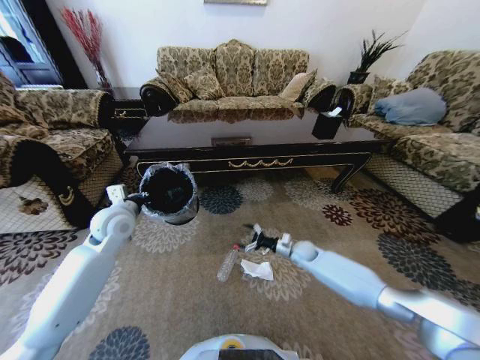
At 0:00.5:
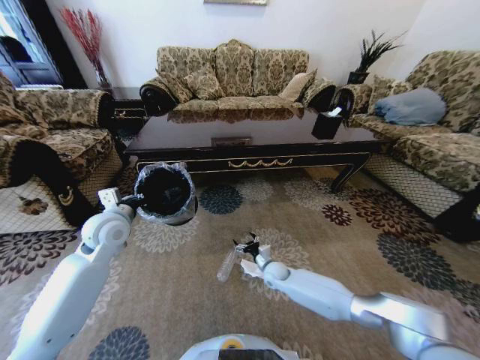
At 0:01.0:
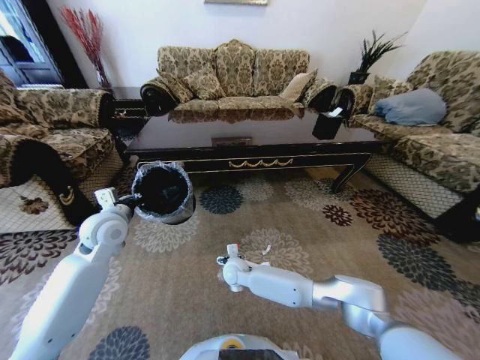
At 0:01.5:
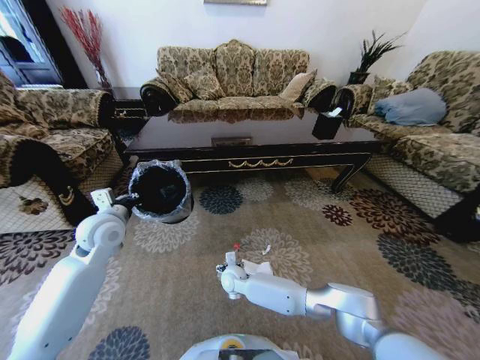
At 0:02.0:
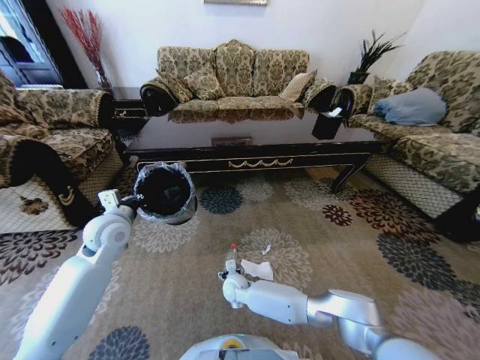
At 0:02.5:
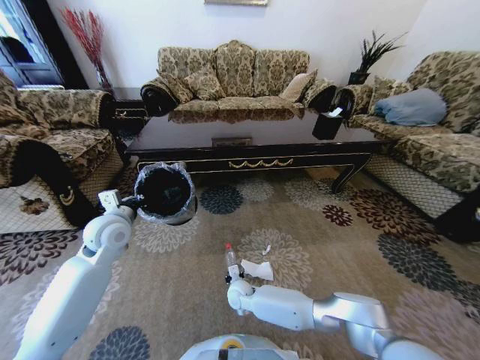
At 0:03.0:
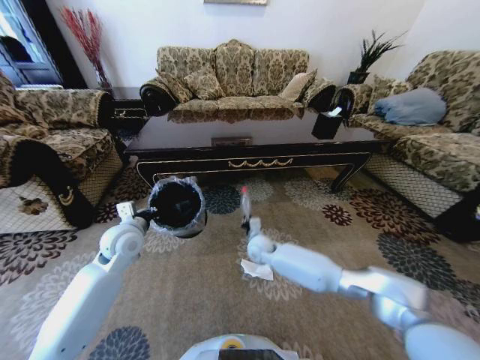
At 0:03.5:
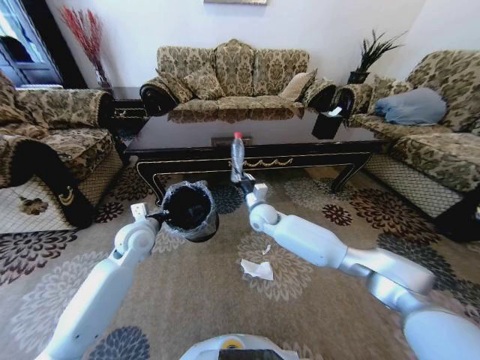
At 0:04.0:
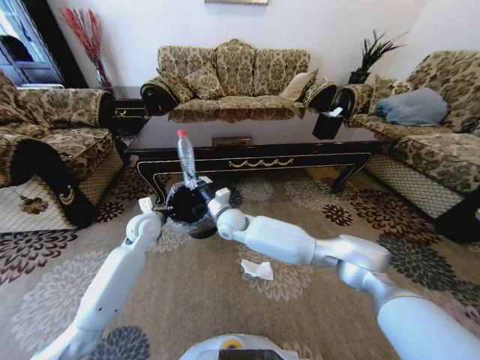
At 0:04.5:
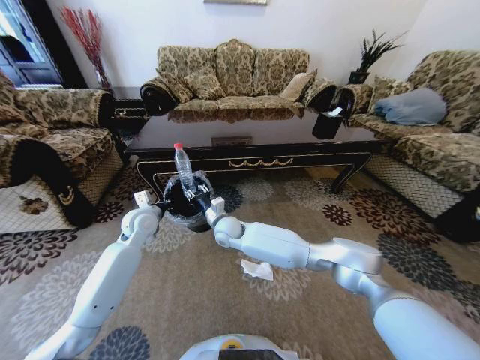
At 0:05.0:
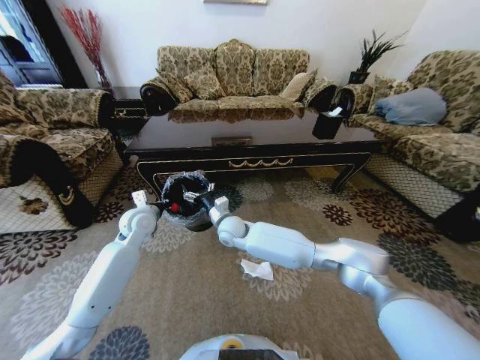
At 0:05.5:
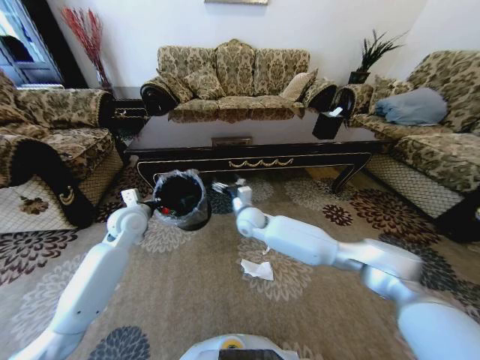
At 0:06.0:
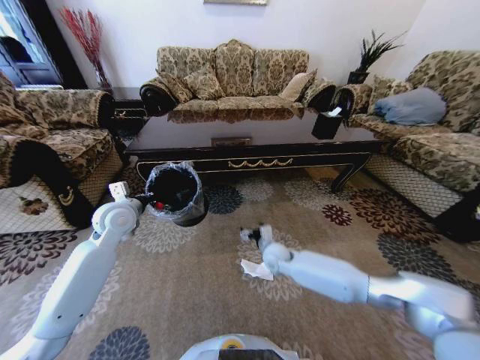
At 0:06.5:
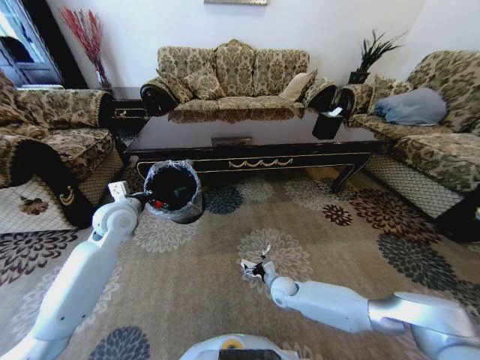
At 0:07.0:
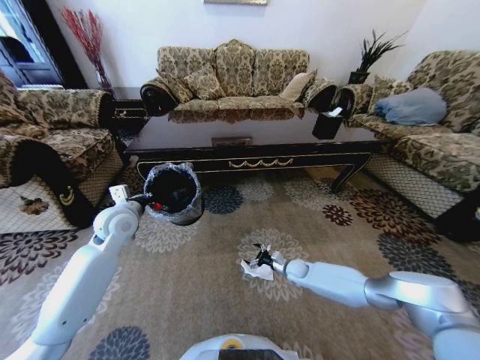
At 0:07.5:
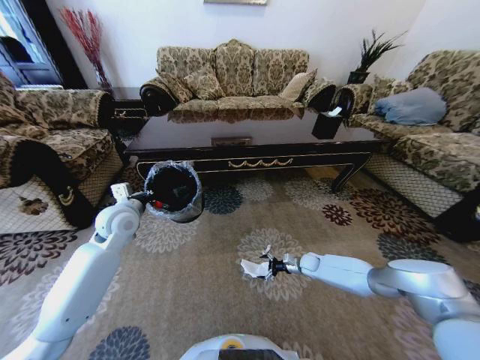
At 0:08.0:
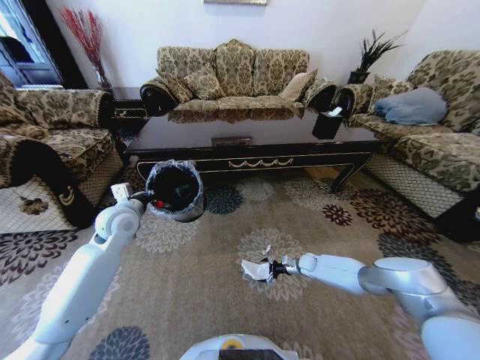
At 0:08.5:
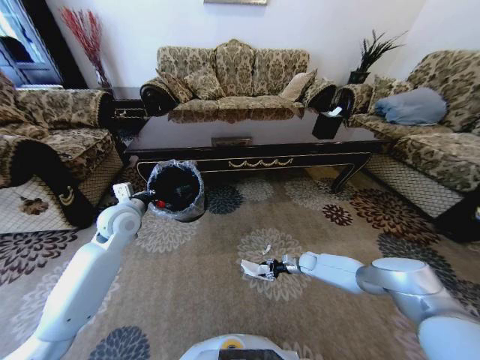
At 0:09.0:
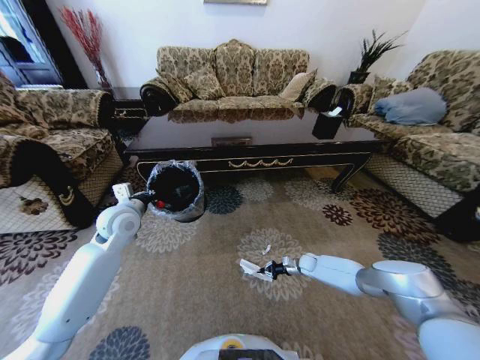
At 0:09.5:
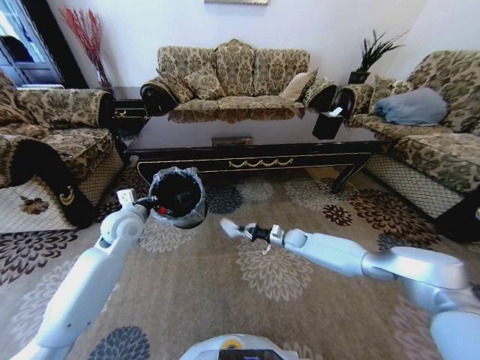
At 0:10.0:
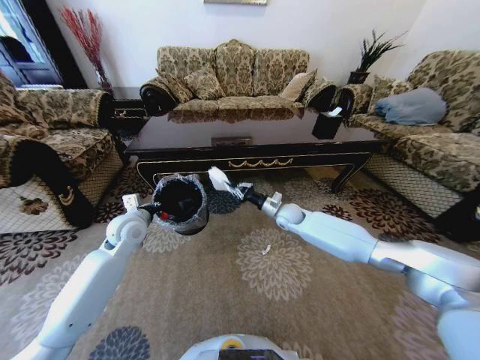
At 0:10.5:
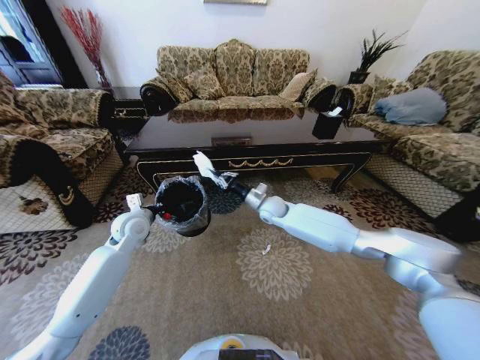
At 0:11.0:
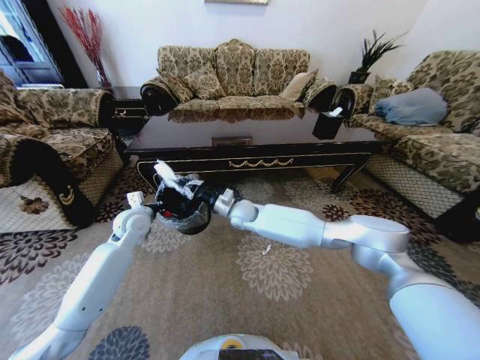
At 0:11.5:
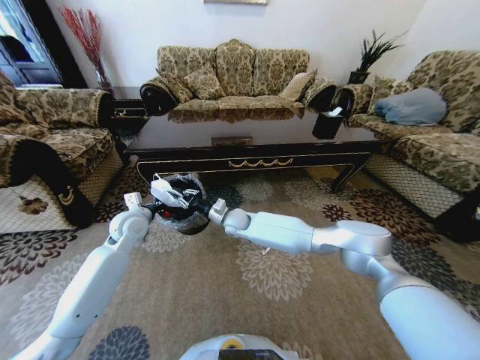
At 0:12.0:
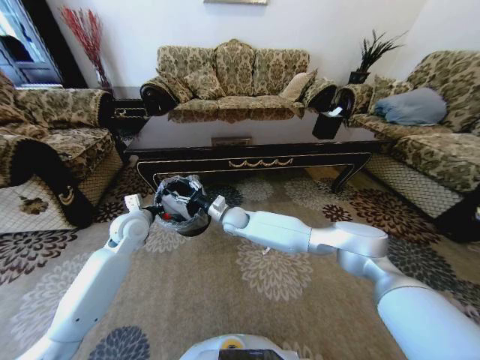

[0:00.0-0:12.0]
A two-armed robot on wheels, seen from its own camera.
Task of the whole recording: Move to the front of the table and pick up the trash from the floor, then place it into the trash bin.
0:00.0 to 0:02.0: The right gripper travels to the left by roughly 25 cm.
0:02.0 to 0:04.0: The right gripper shifts approximately 25 cm upward and forward, and closes up; the left gripper moves downward and forward, roughly 10 cm.
0:04.0 to 0:06.0: The left gripper is displaced upward by some 10 cm. The right gripper moves to the right and downward, about 20 cm, and opens up.
0:06.0 to 0:08.0: The right gripper shifts approximately 25 cm to the right and downward.
0:08.0 to 0:10.0: The right gripper goes about 25 cm upward and to the left, and closes up.
0:10.0 to 0:12.0: The right gripper is displaced to the left by about 20 cm, and opens.

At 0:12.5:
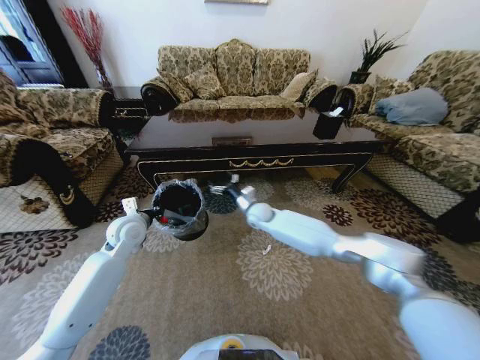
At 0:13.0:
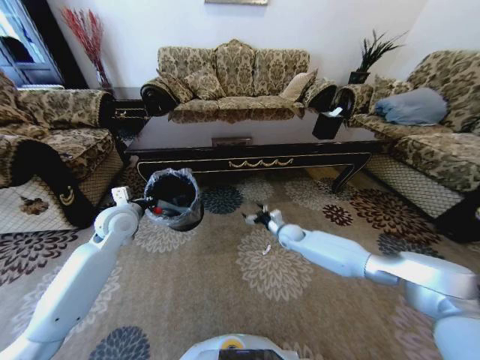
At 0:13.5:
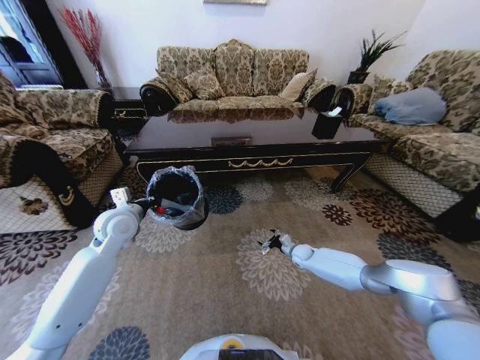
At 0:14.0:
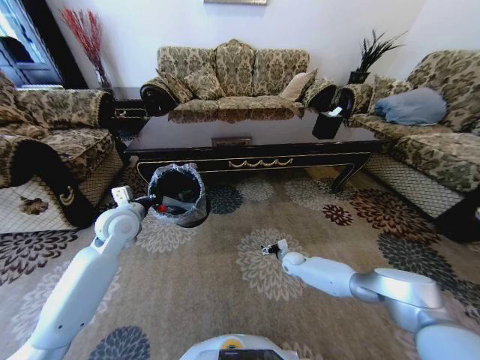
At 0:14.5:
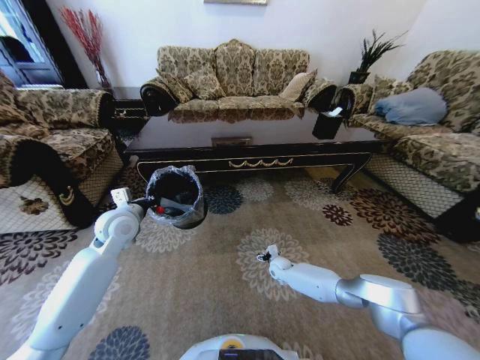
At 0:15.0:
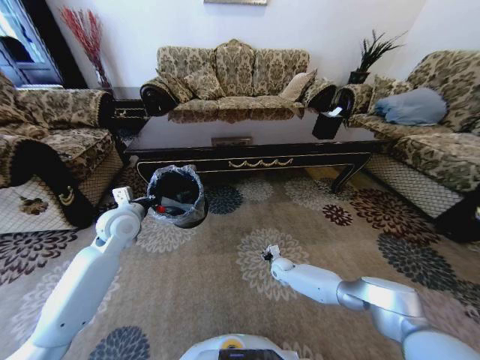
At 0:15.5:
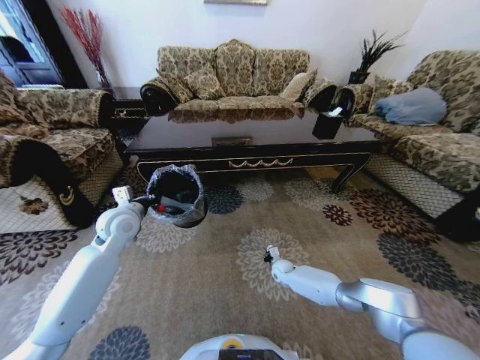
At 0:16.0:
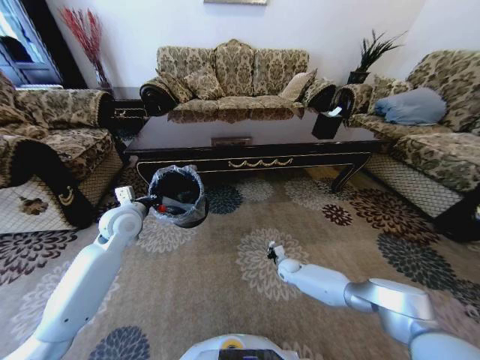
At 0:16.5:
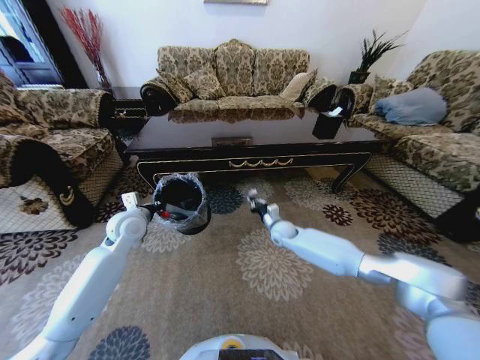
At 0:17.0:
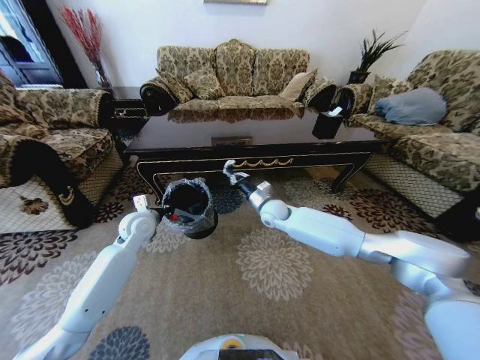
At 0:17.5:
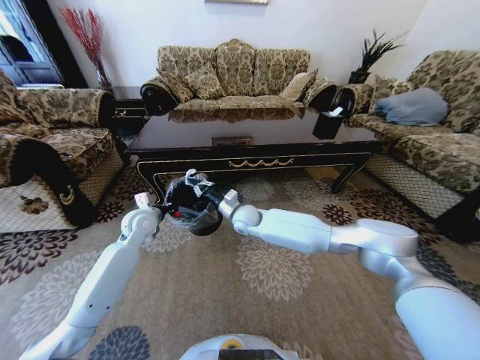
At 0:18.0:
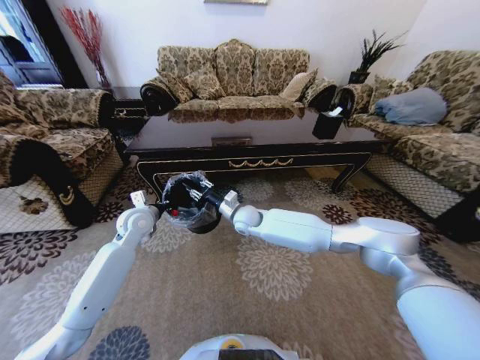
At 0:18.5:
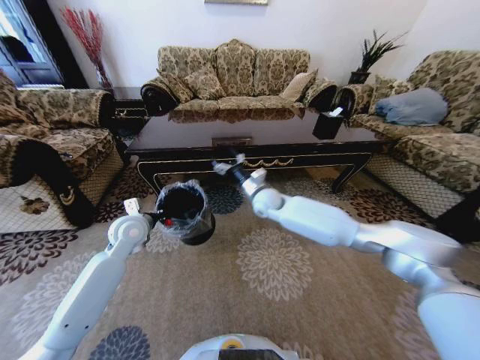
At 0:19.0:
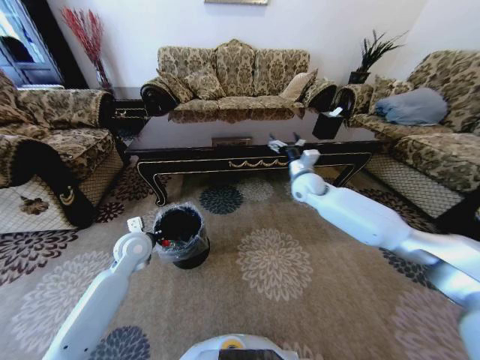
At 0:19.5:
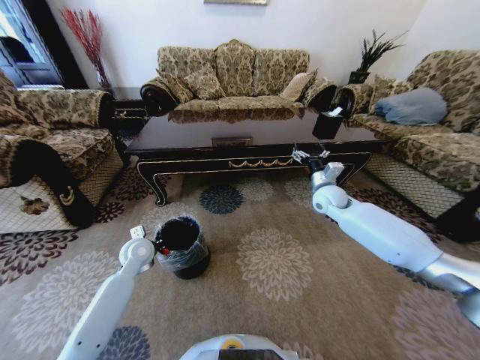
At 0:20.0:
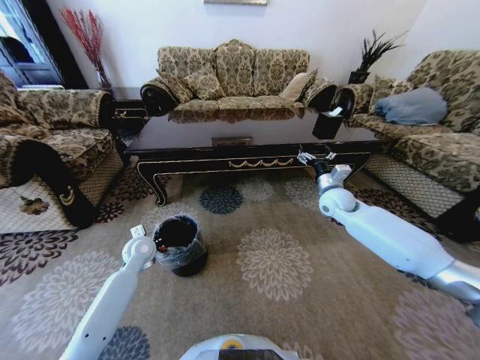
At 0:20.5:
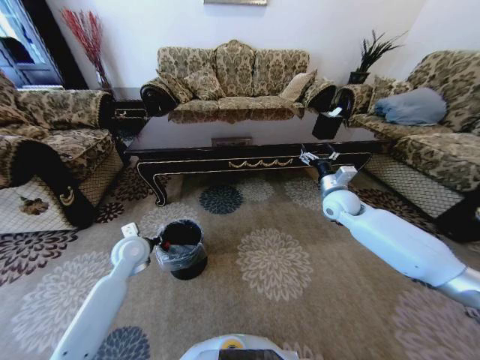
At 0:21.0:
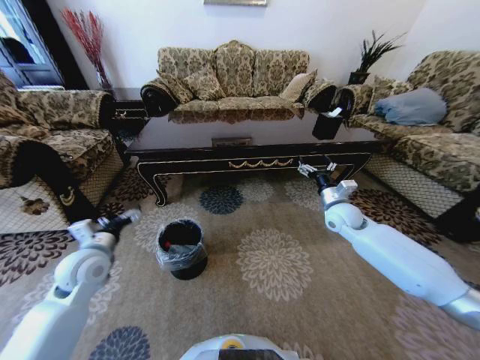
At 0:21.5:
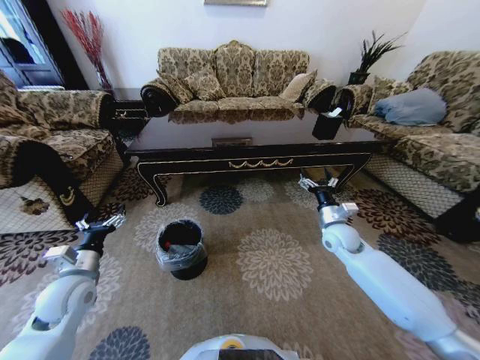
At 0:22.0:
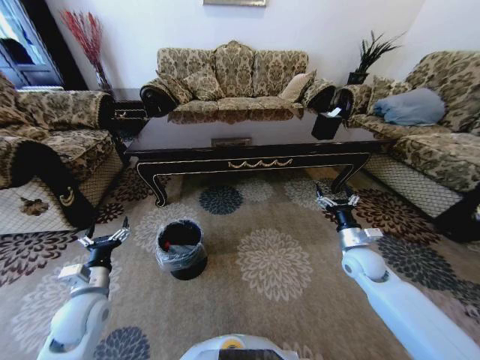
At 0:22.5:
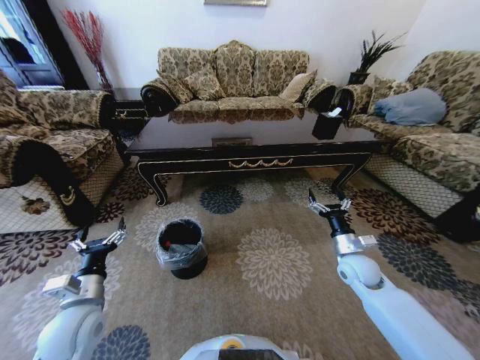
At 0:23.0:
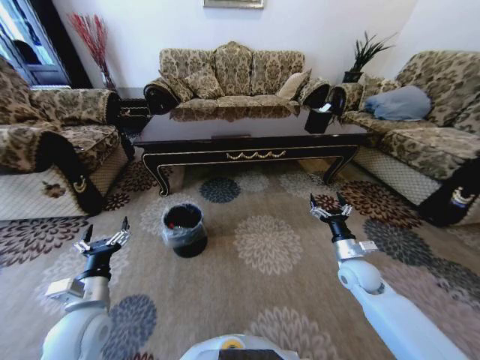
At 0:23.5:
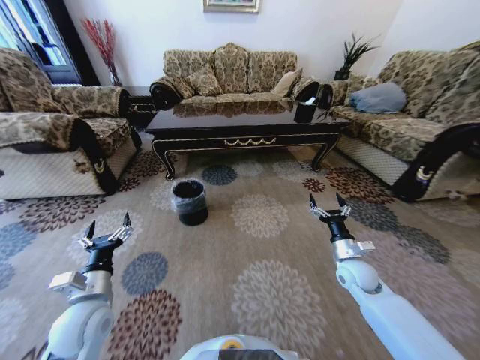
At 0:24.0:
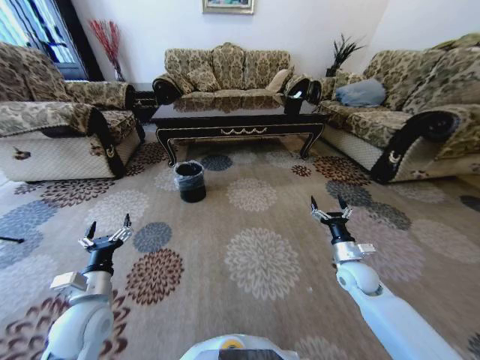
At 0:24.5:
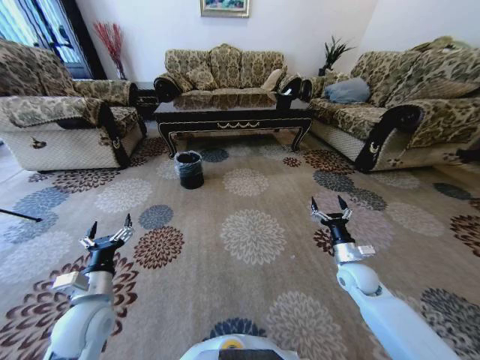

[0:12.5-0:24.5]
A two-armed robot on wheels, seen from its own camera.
Task of the whole recording: Move to the front of the table and pick up the trash from the floor, then place it into the trash bin.
0:12.5 to 0:14.5: The right gripper is displaced downward and to the right by roughly 25 cm.
0:14.5 to 0:16.5: The right gripper heads upward, covering roughly 15 cm, and closes.
0:16.5 to 0:18.5: The right gripper is displaced upward and to the left by some 15 cm, and opens its fingers.
0:18.5 to 0:20.5: The left gripper travels downward by approximately 5 cm, and opens up; the right gripper is displaced to the right by roughly 20 cm.
0:20.5 to 0:22.5: The right gripper goes about 20 cm backward and downward; the left gripper heads backward, covering about 20 cm, and opens up.

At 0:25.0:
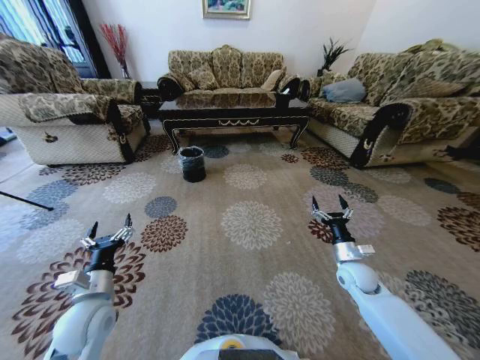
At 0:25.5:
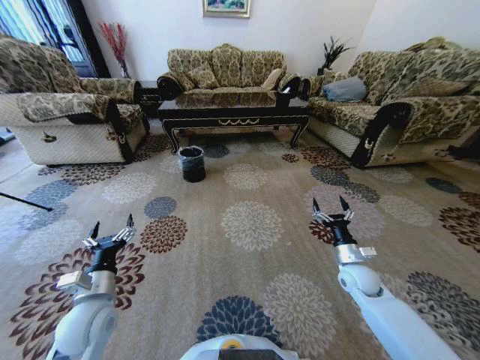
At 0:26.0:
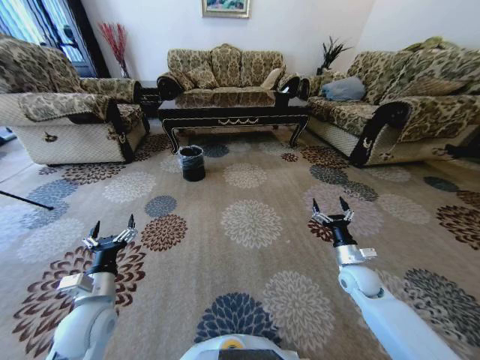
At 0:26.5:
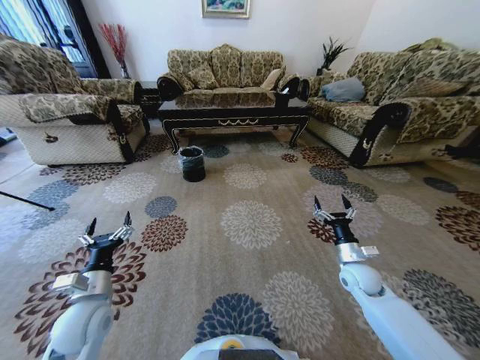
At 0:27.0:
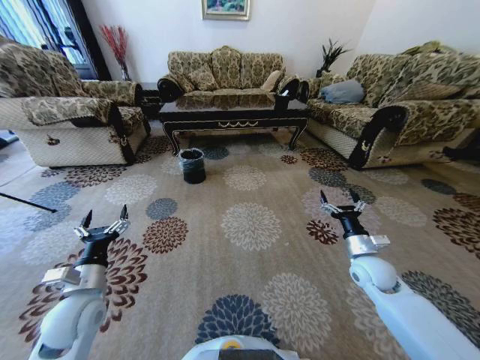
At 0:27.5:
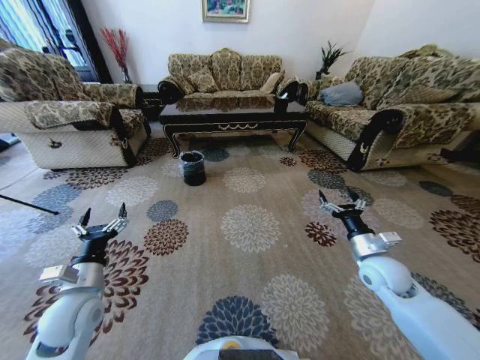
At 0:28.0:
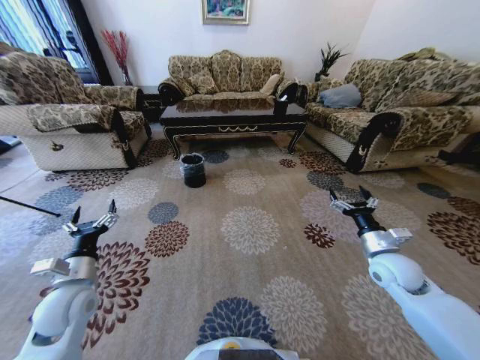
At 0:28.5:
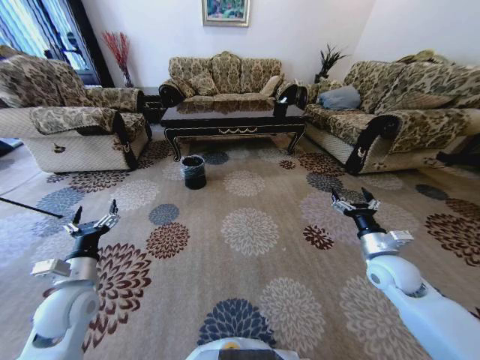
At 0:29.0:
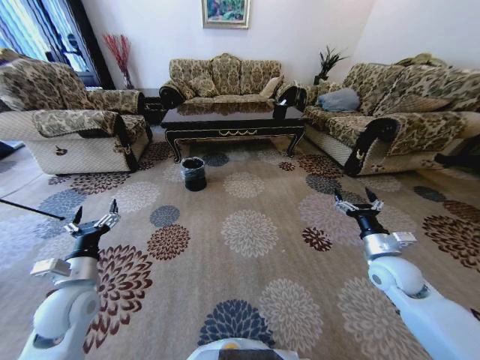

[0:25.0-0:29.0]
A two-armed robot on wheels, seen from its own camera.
Task of the whole recording: Move to the front of the table and pick up the trash from the floor, then place it into the trash bin.
0:25.0 to 0:27.0: The right gripper heads upward, covering about 5 cm.
